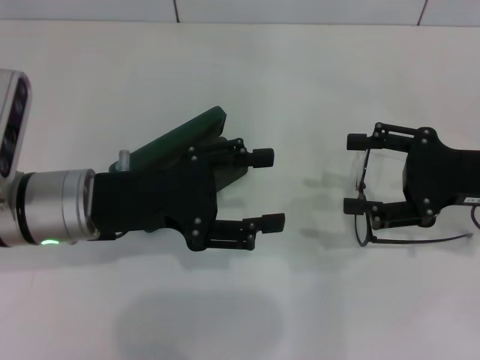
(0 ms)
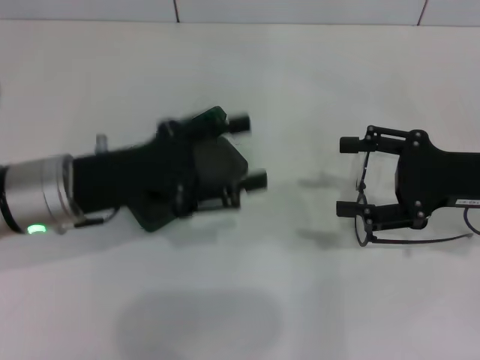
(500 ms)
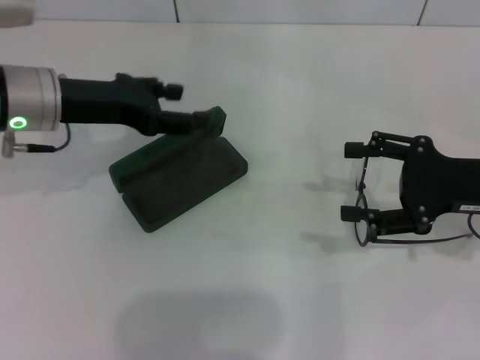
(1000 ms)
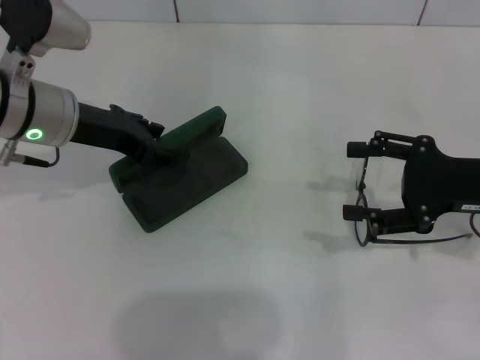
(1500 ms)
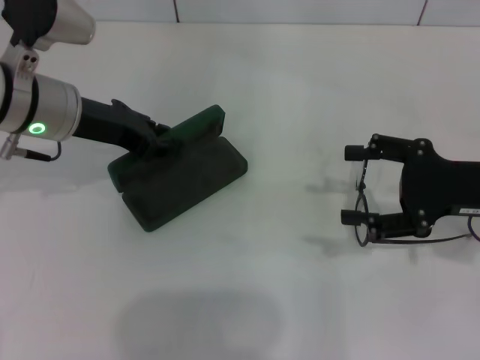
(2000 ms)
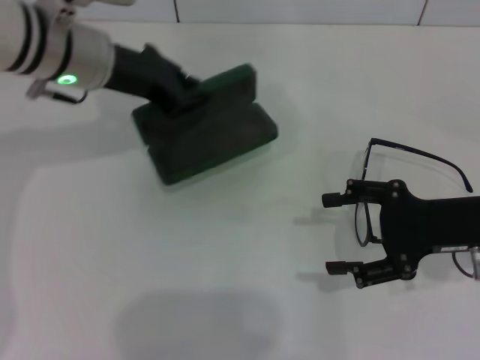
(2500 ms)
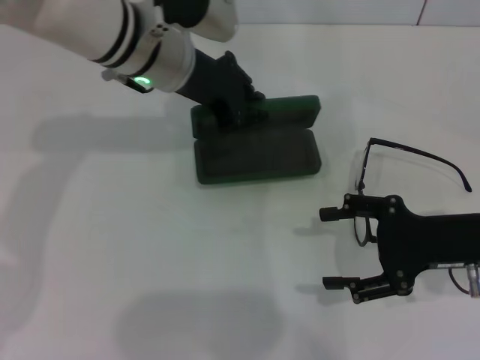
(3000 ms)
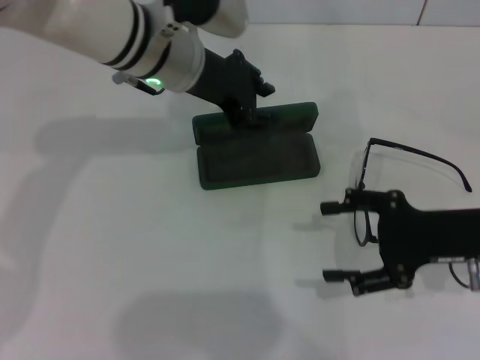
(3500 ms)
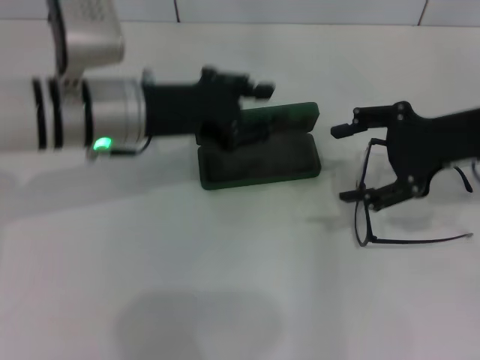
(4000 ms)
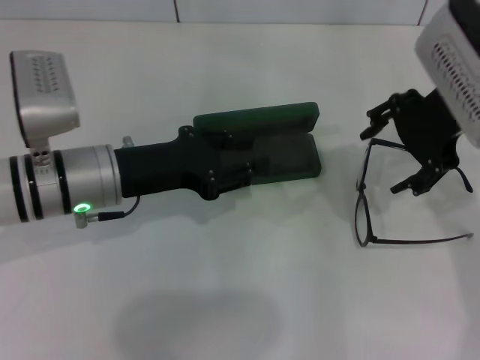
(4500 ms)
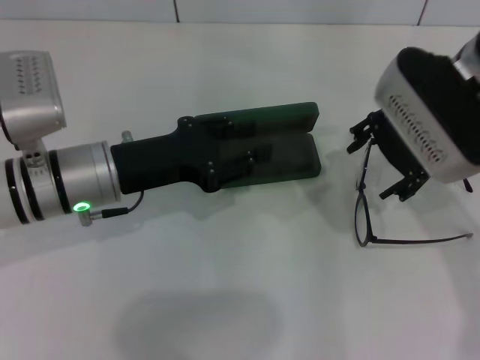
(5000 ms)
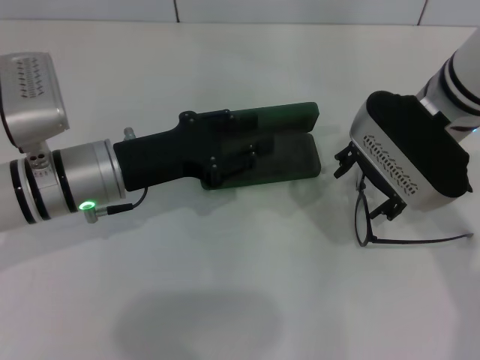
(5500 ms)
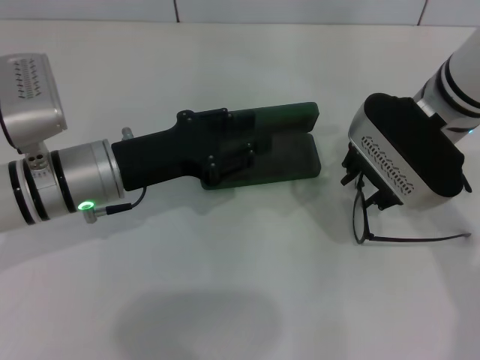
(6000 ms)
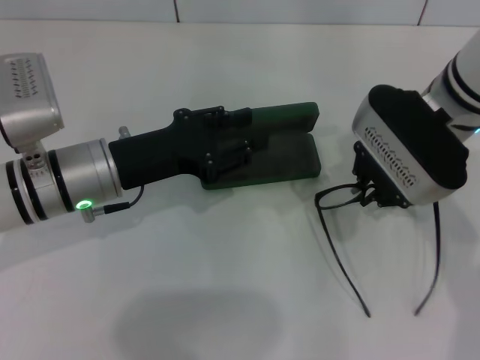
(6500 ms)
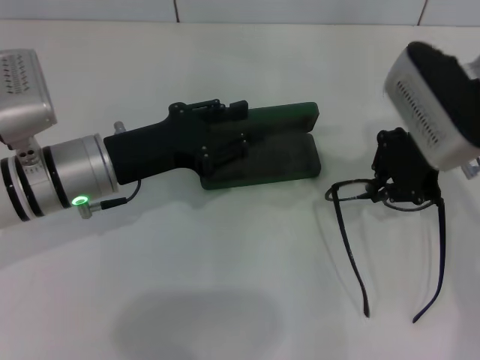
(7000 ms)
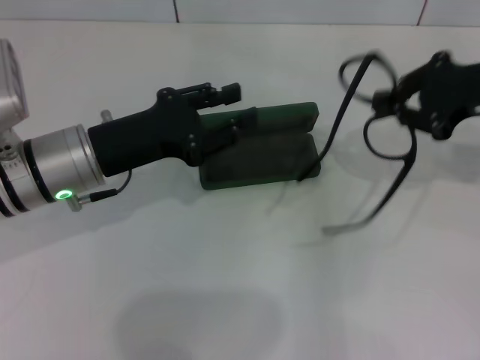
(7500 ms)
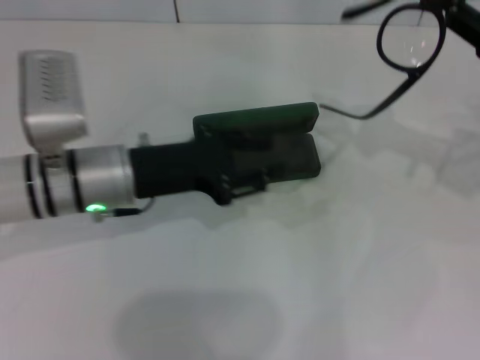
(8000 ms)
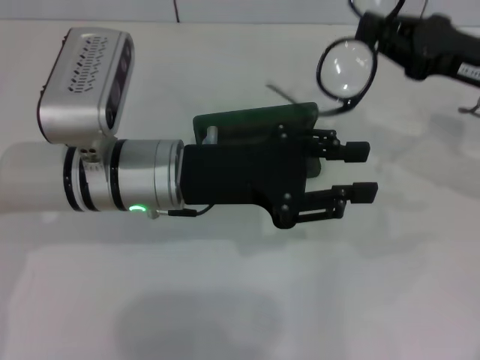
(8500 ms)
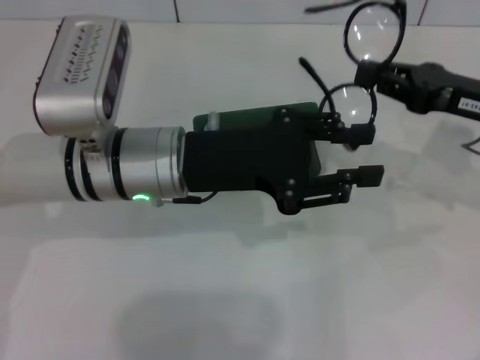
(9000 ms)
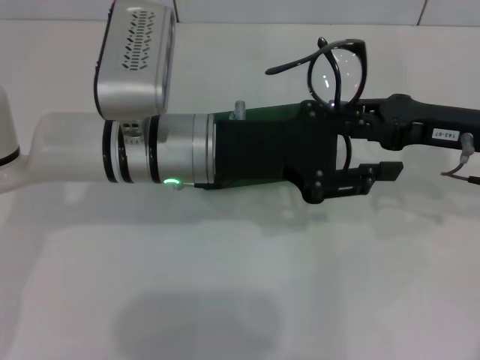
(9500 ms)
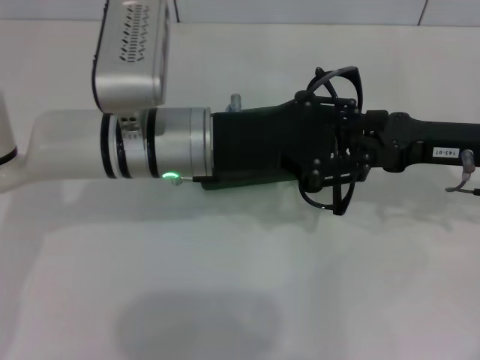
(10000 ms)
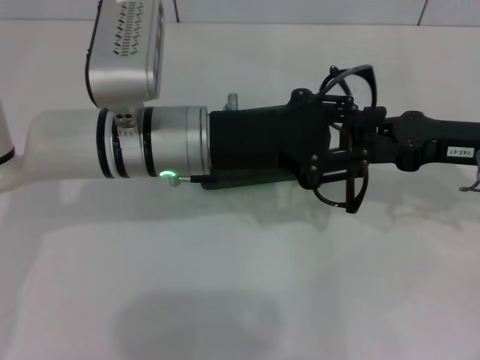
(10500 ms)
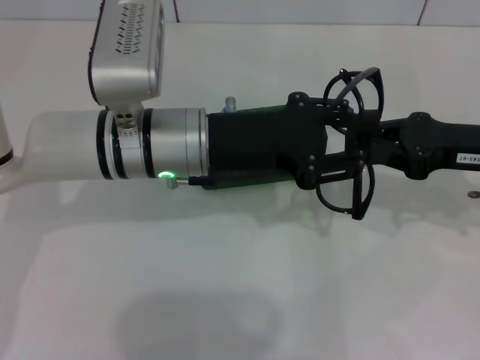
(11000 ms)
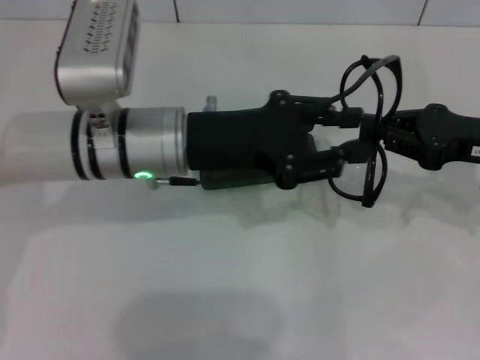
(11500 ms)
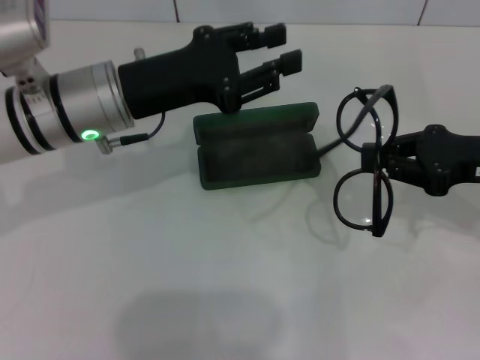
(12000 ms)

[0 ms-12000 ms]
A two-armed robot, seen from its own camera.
Step, 0 ms to 1500 ms: Grab the glasses case with your left hand.
Step, 2000 ms to 3000 ms: Place the glasses case in the center of the table with your left hand.
Step, 3500 ms to 6000 ms: Grab the eyeglass frame with your right hand.
0 ms to 2000 ms: The left gripper is displaced forward by some 10 cm, and closes its fingers.
2000 ms to 4000 ms: The left gripper travels to the right by approximately 5 cm, and closes, then opens again. Meanwhile the right gripper shifts about 5 cm upward.
4000 ms to 6000 ms: The right gripper goes roughly 10 cm to the left. Meanwhile the left gripper travels downward by approximately 5 cm.
6000 ms to 8000 ms: The right gripper heads to the right, covering roughly 15 cm, and closes up.
8000 ms to 10000 ms: The left gripper shifts roughly 5 cm to the right. Meanwhile the right gripper travels downward and to the left by some 10 cm.
10000 ms to 12000 ms: The left gripper shifts about 5 cm to the left.

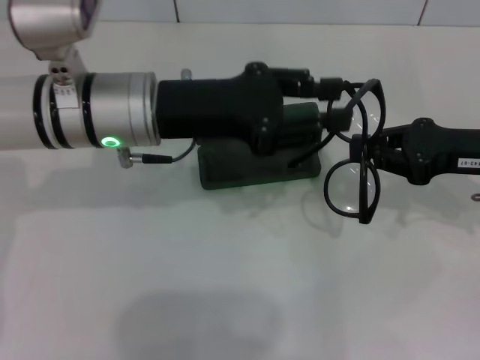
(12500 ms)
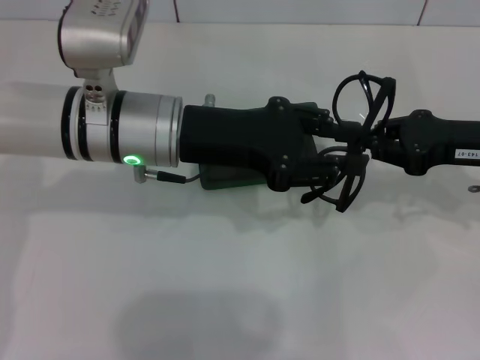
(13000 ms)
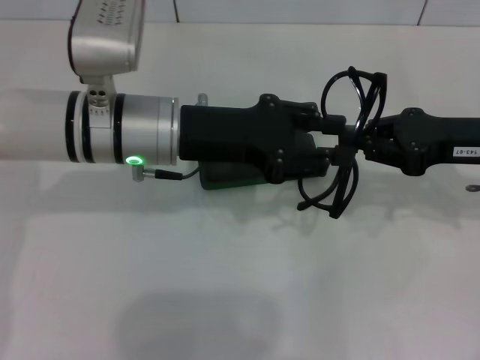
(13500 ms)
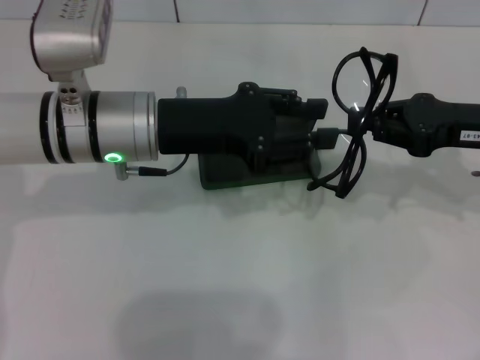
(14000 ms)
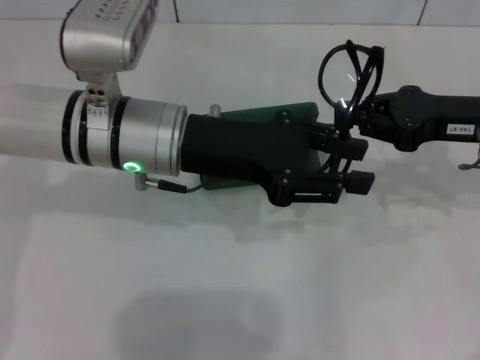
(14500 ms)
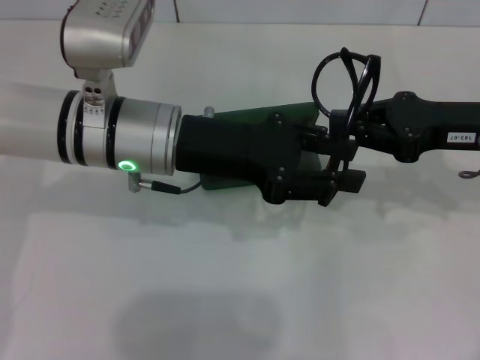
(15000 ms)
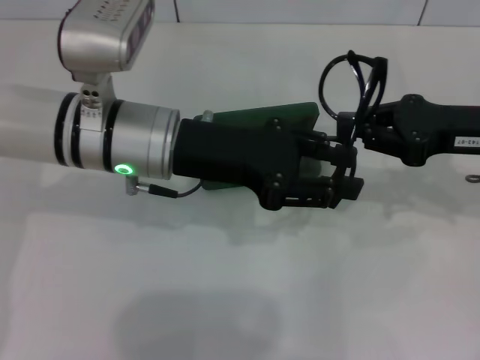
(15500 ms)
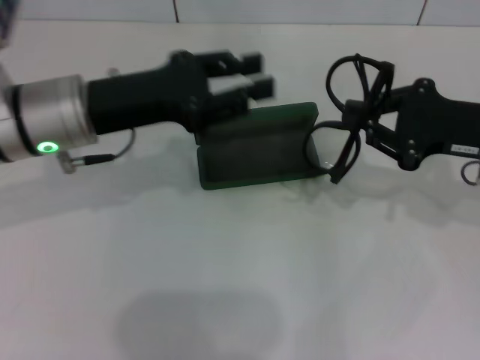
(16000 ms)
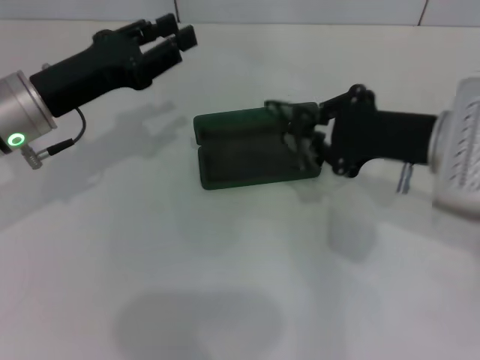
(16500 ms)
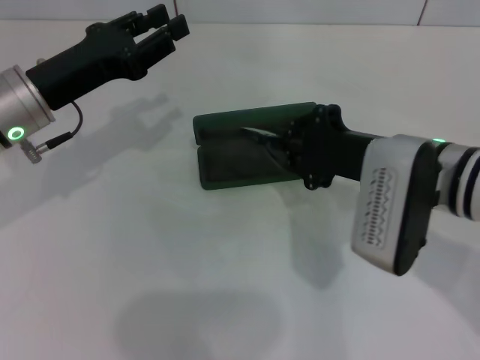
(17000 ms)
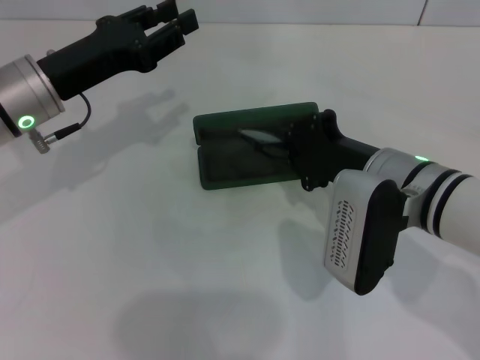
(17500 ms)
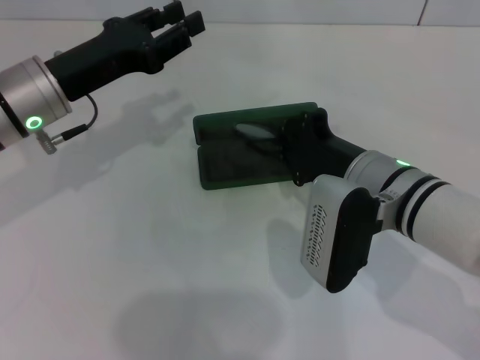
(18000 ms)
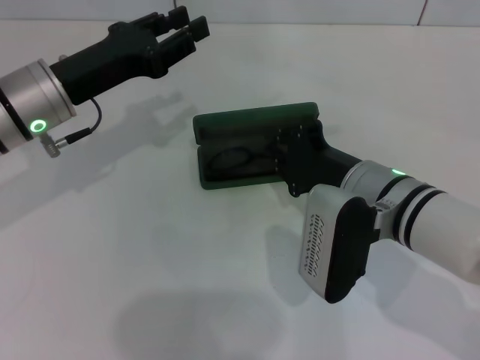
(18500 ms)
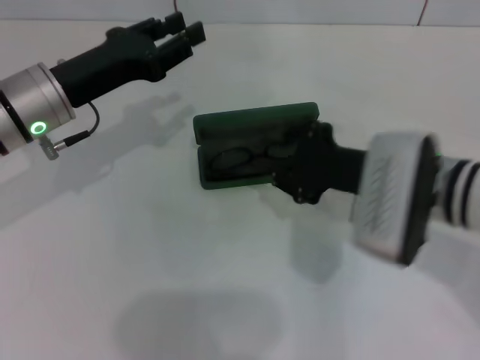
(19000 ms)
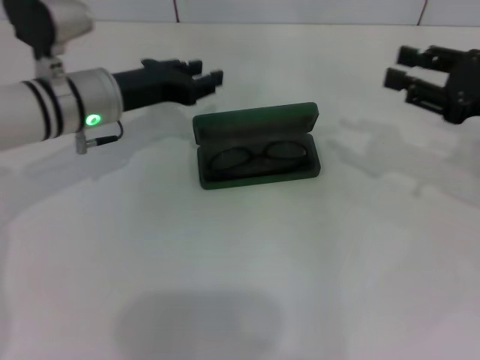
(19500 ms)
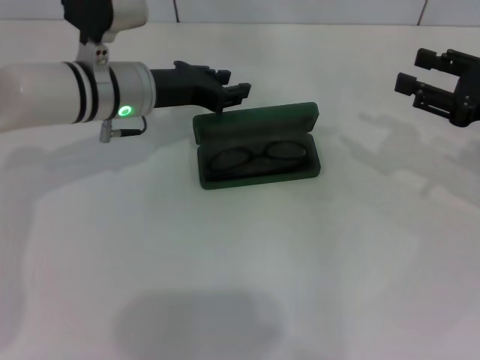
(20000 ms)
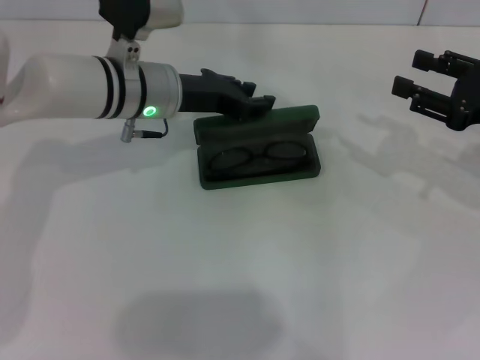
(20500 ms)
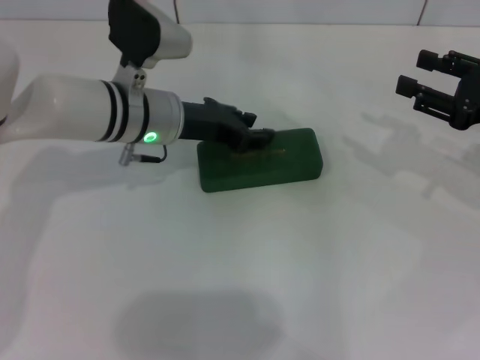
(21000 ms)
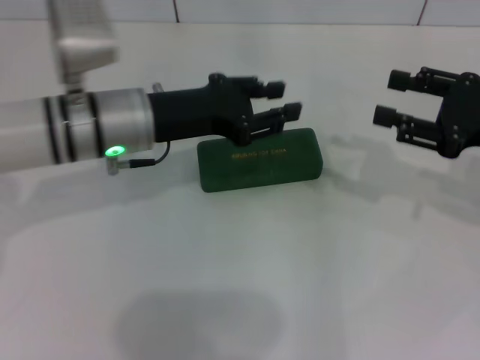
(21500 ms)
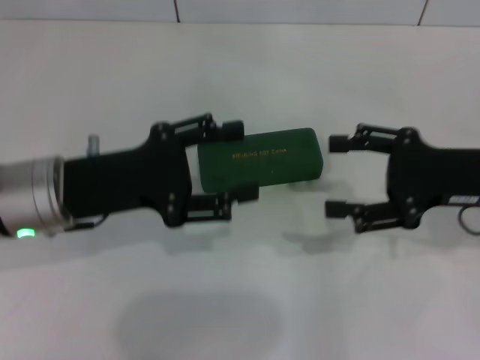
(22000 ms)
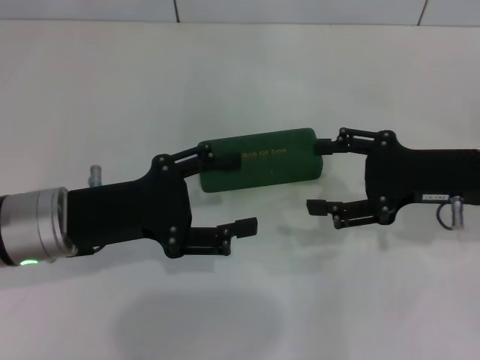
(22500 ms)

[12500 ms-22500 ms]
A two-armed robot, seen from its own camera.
Step, 14000 ms to 18500 ms: Put the glasses into the case with your right hand.
Step, 19000 ms to 21000 ms: Close the glasses case with your left hand.
14500 ms to 16500 ms: The left gripper shifts approximately 10 cm to the left, while the right gripper is displaced to the left by approximately 5 cm.
16500 ms to 18500 ms: The right gripper moves to the left and downward, about 10 cm.
18500 ms to 20500 ms: The left gripper travels to the right and forward by approximately 10 cm. The right gripper is displaced to the right by approximately 20 cm, and opens its fingers.
20500 ms to 22500 ms: The left gripper shifts approximately 15 cm backward and to the left, and opens up; the right gripper moves to the left, some 5 cm, and opens.

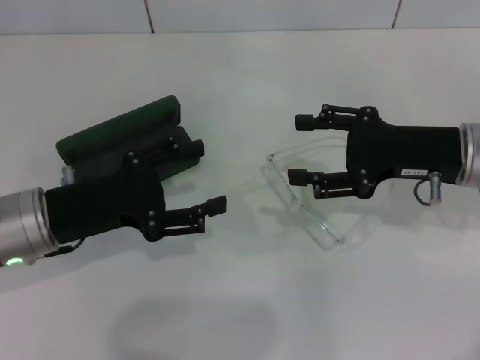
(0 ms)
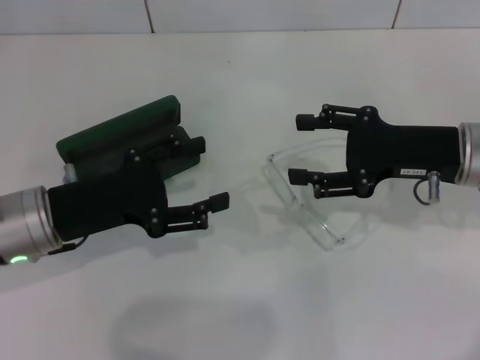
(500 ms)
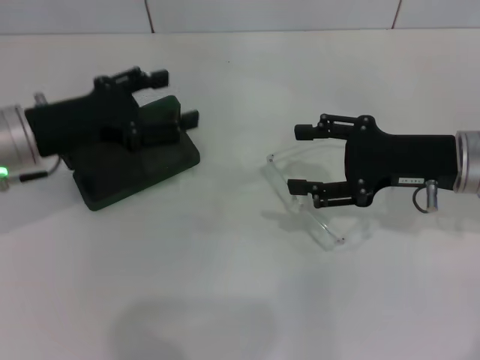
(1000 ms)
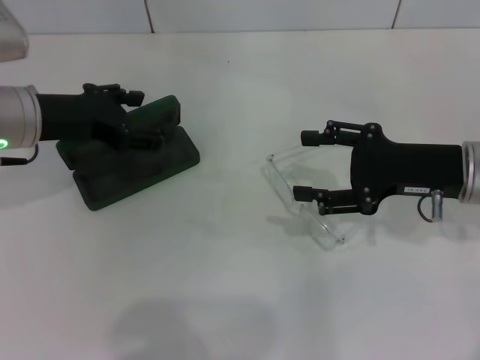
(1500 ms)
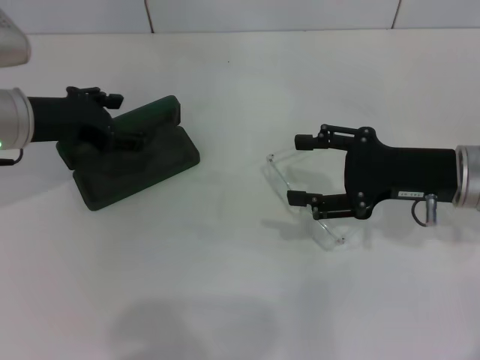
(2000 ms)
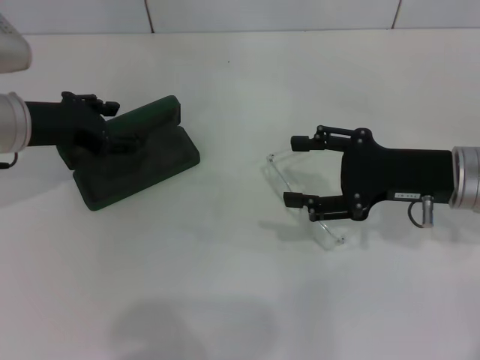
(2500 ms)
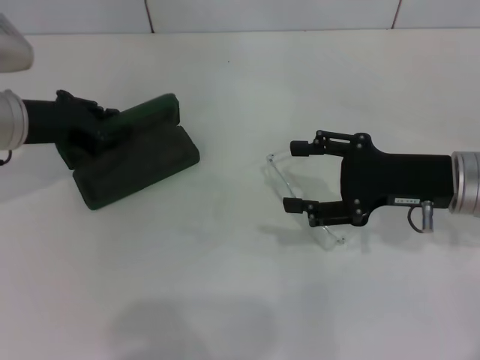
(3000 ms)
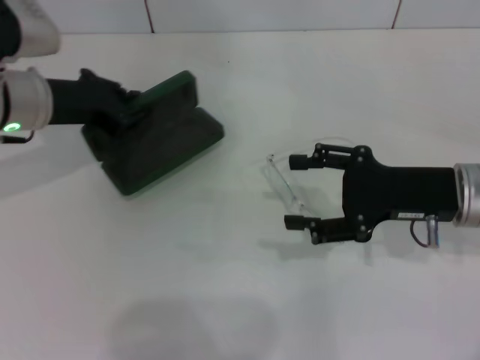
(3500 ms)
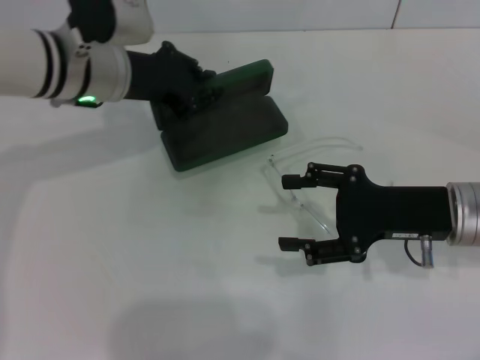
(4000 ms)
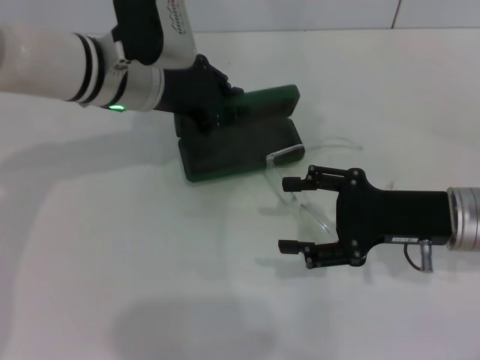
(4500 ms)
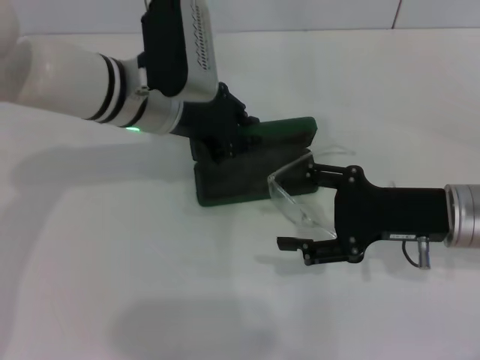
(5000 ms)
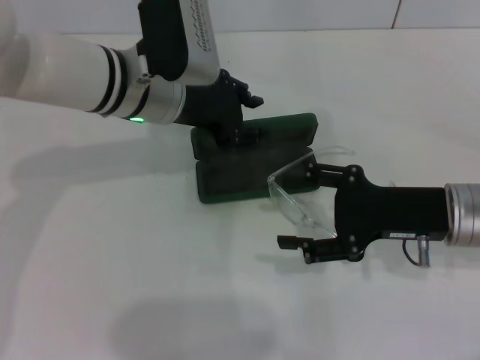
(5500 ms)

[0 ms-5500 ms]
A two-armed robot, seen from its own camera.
Step, 0 ms to 3000 ms: Grab the glasses case with your left hand.
Step, 3500 ms to 5500 ms: Place the glasses case in the center of the table with your left hand.
0 ms to 2000 ms: The left gripper heads forward, covering some 10 cm.
2000 ms to 3500 ms: The left gripper closes its fingers.
3500 ms to 5500 ms: The left gripper moves to the right, some 10 cm.
